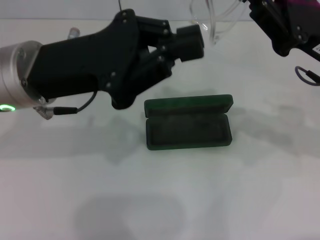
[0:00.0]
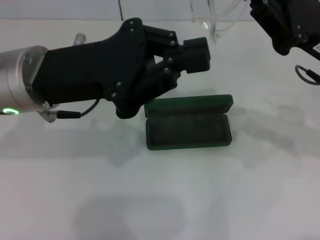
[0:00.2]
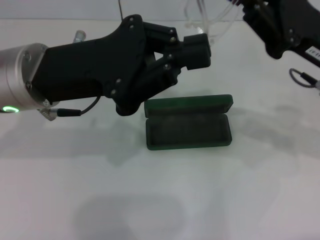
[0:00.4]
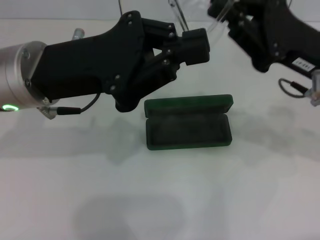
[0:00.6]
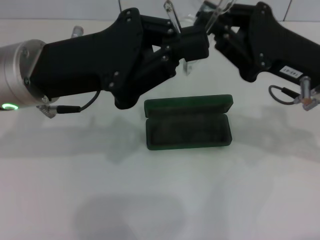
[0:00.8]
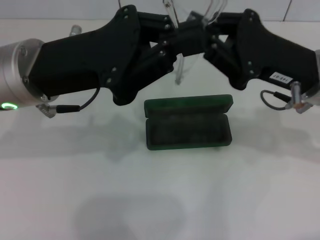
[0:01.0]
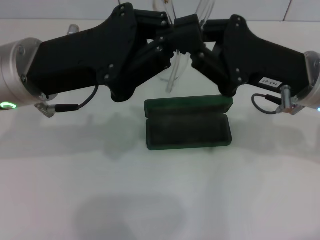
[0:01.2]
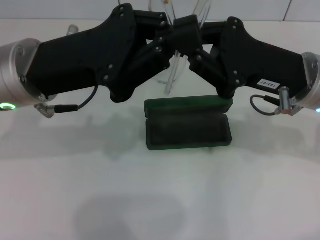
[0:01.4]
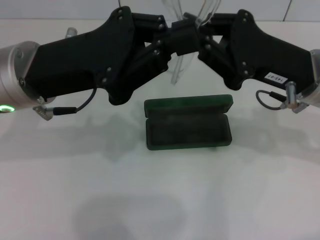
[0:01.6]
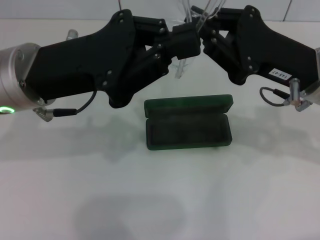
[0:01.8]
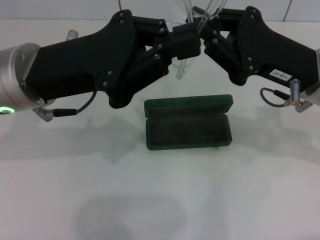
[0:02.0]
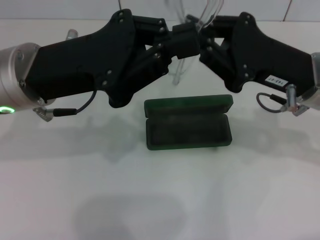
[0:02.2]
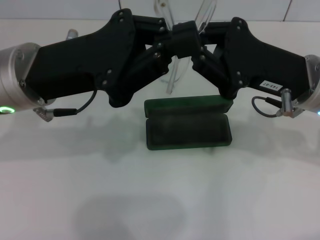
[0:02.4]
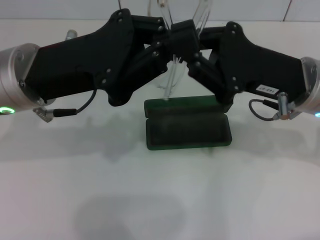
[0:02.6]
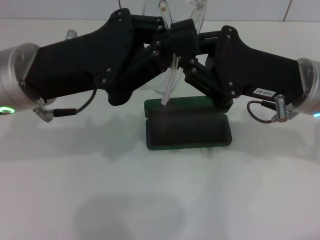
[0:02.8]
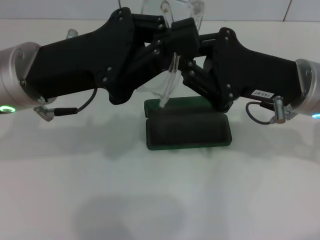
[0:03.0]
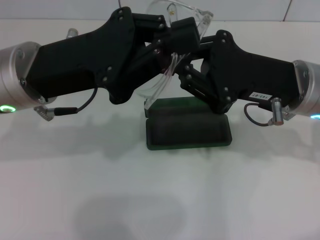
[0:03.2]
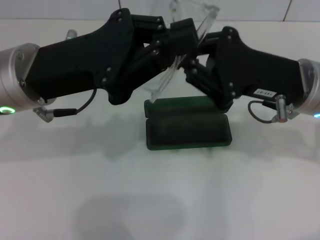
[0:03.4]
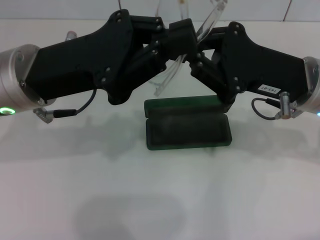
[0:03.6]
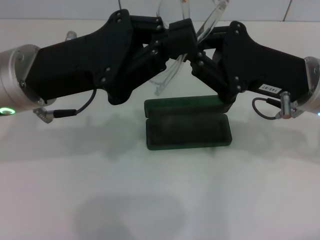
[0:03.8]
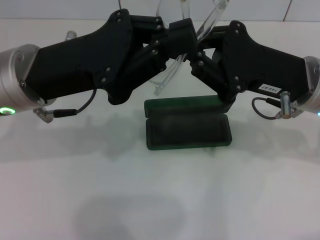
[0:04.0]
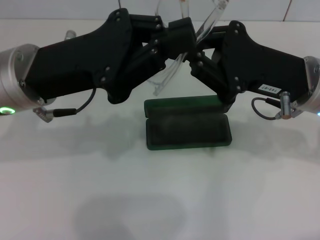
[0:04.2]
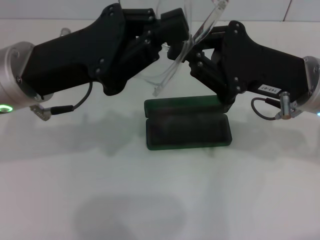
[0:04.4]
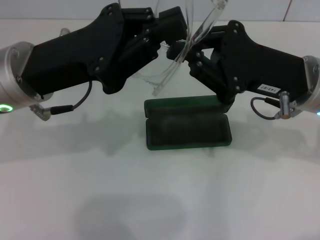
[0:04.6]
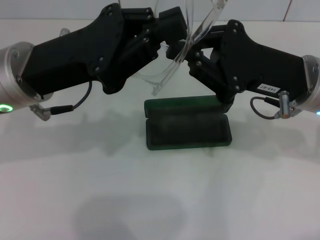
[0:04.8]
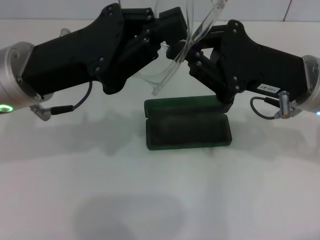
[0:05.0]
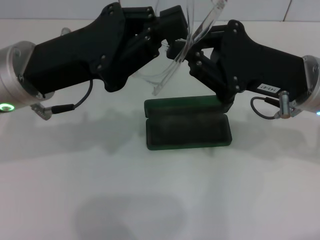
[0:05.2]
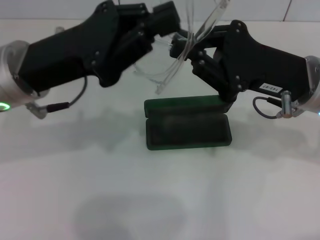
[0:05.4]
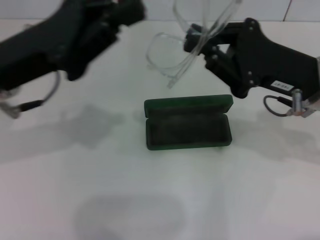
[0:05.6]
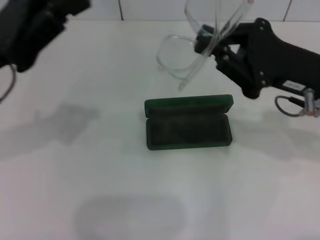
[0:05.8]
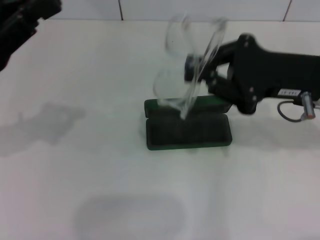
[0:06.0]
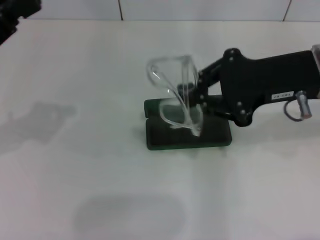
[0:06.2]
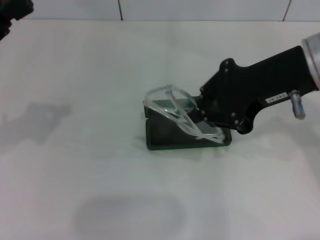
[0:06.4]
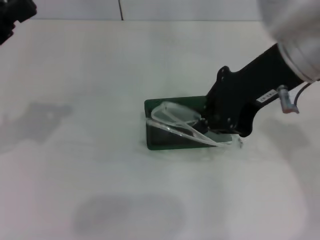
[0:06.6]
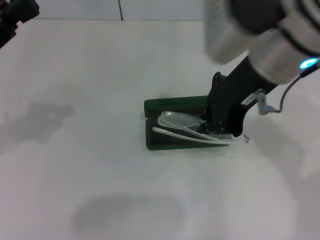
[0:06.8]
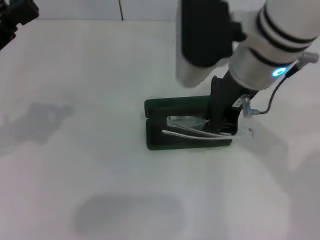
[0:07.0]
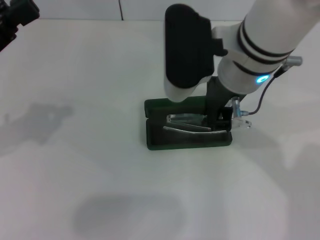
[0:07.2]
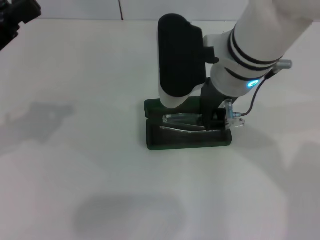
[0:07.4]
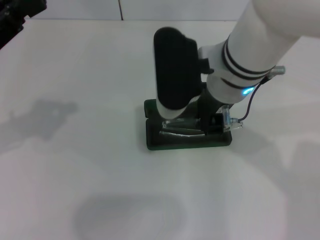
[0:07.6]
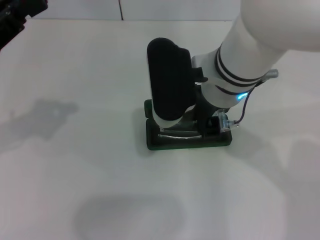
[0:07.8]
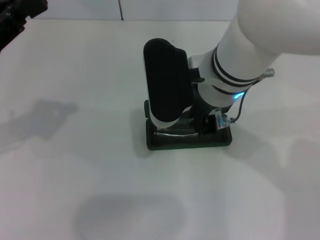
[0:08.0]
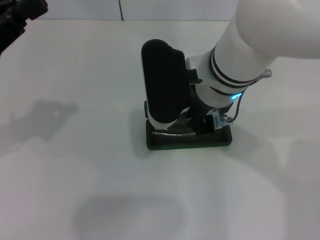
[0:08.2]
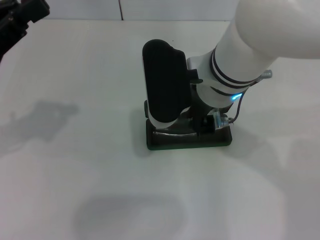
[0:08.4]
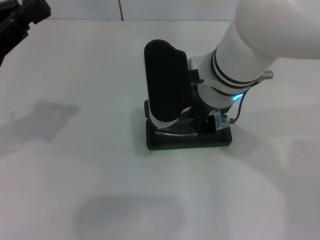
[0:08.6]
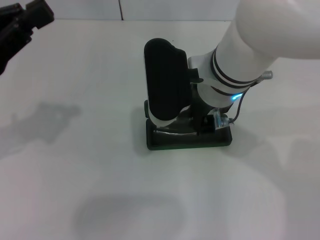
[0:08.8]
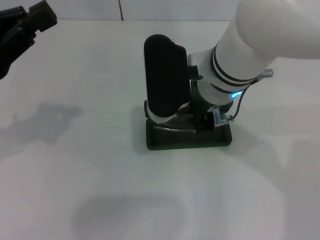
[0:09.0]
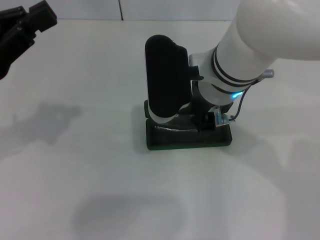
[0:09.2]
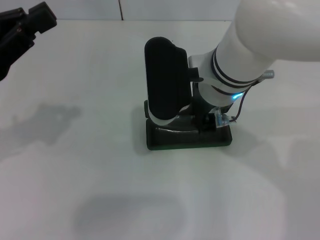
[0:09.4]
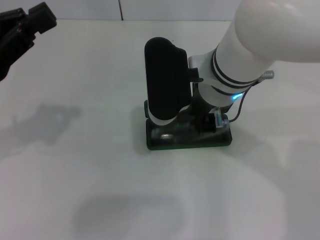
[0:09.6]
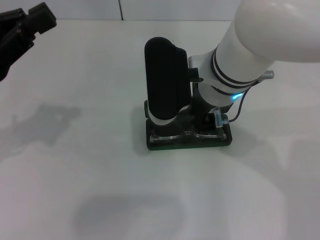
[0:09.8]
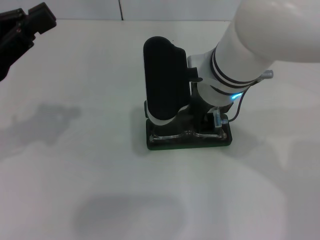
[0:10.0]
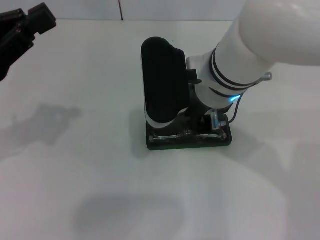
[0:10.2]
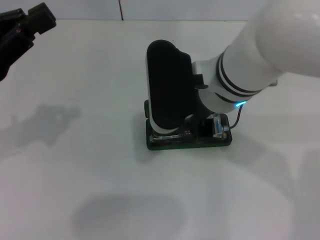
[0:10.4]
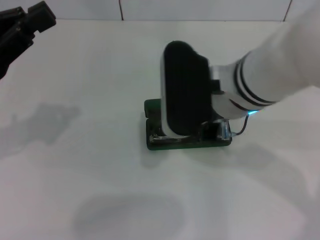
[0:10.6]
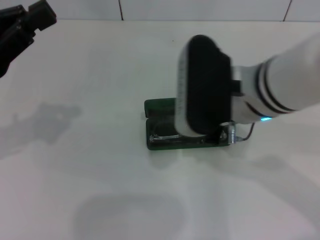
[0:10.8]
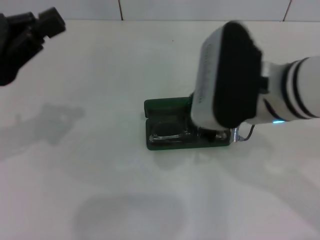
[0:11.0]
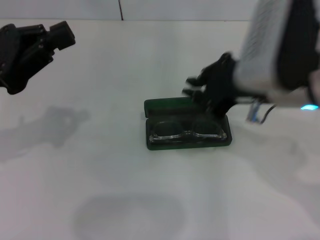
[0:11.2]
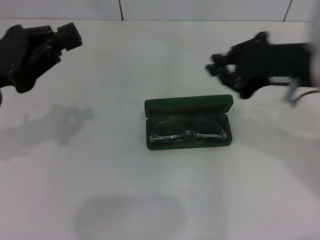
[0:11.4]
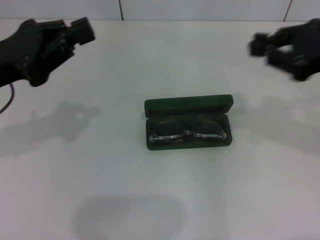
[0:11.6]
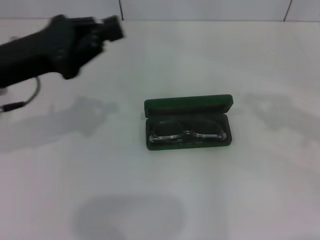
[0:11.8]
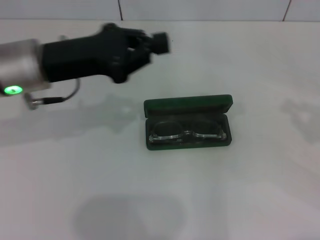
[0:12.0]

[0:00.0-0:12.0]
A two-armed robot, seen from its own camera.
Step, 0:00.0 to 0:02.6: Lift the glasses with your right hand.
Step, 0:02.8 to 0:09.8: Put the glasses into the case with your right hand.
0:00.0 to 0:03.0: There are only small adjustments of the grippers.
0:03.0 to 0:04.4: The two grippers keep their place.
0:04.4 to 0:06.0: The left gripper heads to the left, covering roughly 10 cm.
0:06.0 to 0:07.6: The right gripper is displaced to the left by about 15 cm.
0:07.6 to 0:10.4: The grippers make only small movements.
0:10.4 to 0:12.0: The left gripper is displaced to the right and forward by about 10 cm. The right gripper heads to the right, covering about 35 cm.

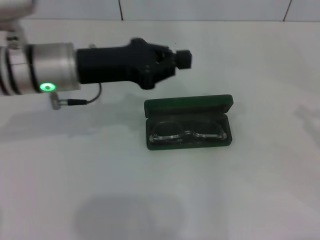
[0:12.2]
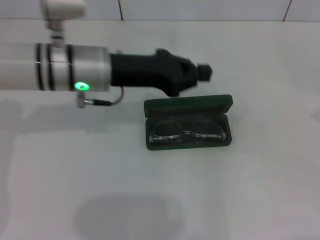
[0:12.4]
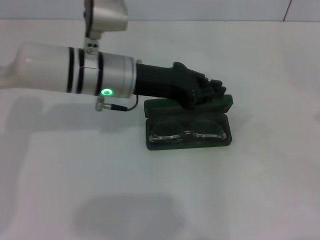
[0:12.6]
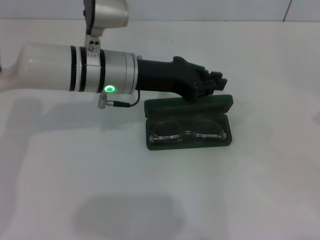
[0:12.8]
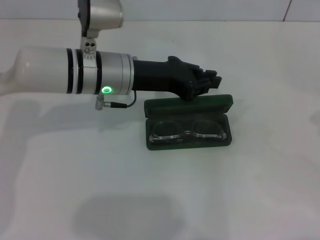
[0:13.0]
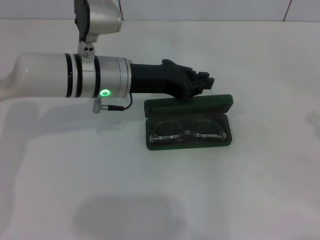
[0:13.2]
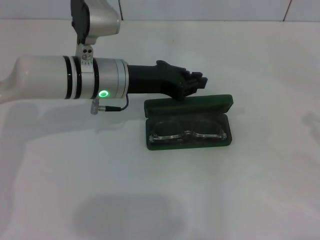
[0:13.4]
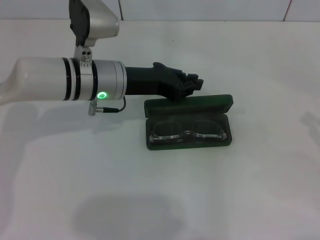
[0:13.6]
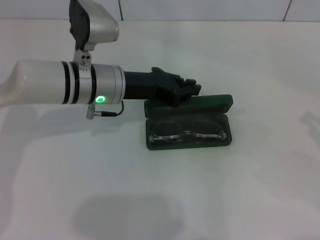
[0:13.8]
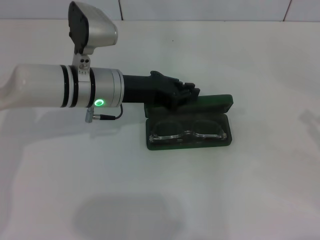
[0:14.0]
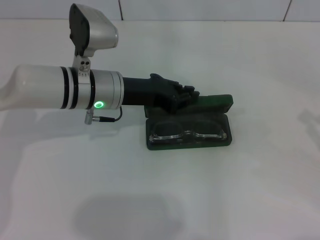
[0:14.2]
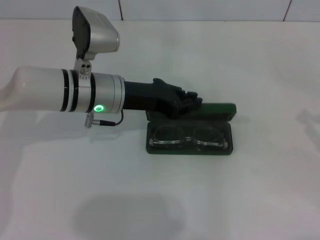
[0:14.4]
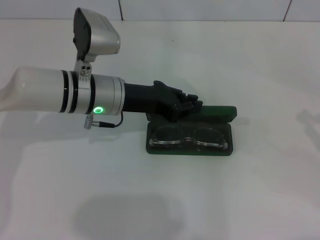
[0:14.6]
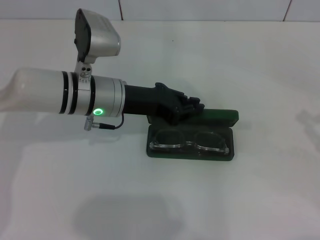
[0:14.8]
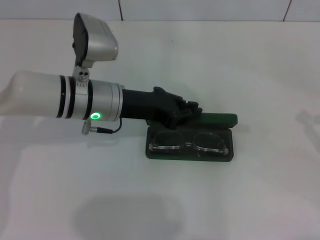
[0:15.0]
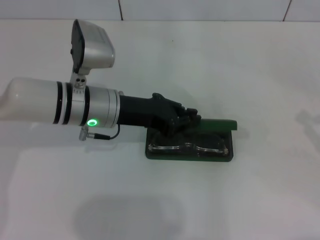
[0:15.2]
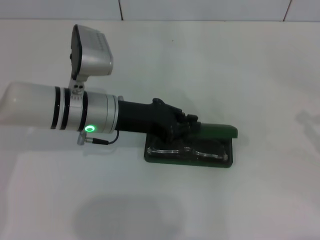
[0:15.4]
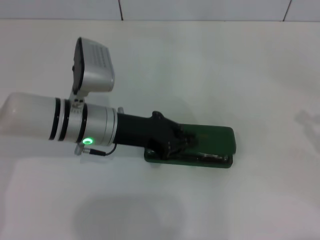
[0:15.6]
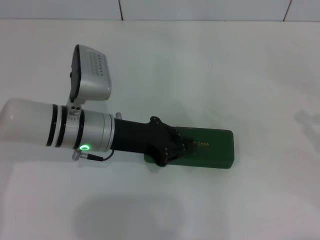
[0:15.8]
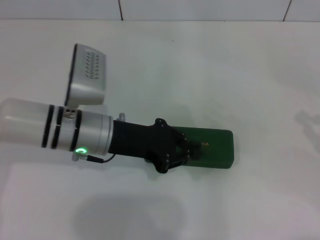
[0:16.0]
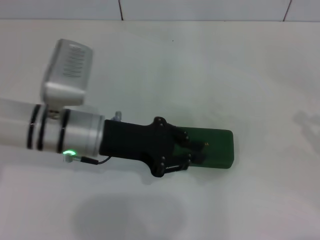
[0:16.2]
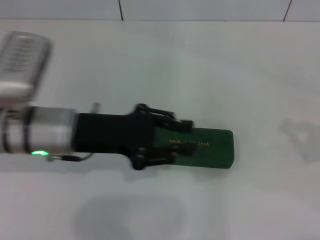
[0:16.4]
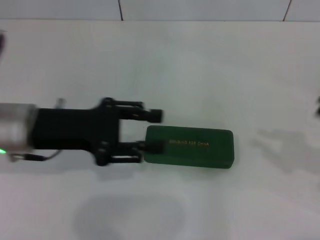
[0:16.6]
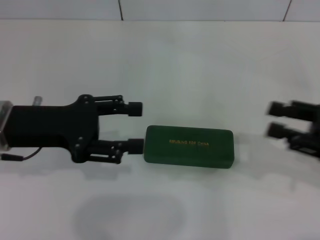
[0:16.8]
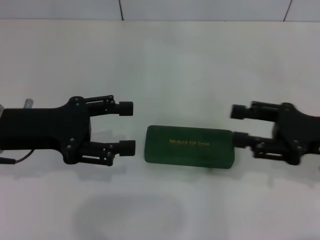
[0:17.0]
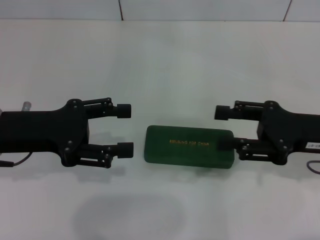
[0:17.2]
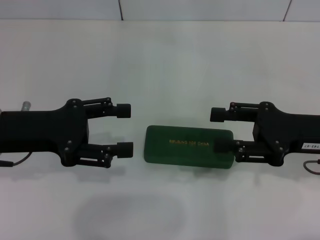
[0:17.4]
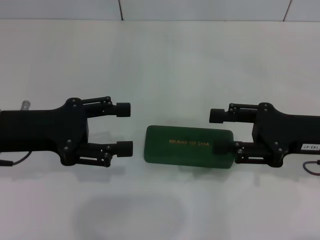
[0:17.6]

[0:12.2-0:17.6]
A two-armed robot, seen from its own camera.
Step, 0:12.2 to 0:15.6: Close the glasses case with your left hand.
0:12.2 to 0:13.6: The left gripper ends up some 5 cm from where it was.
0:13.6 to 0:15.0: The grippers stay close to where they were, moving slightly.
0:15.0 to 0:16.2: The left gripper is displaced backward by roughly 5 cm.
0:16.2 to 0:17.6: The right gripper travels to the left and forward by about 15 cm, and opens up; the left gripper shifts about 10 cm to the left, and opens up.

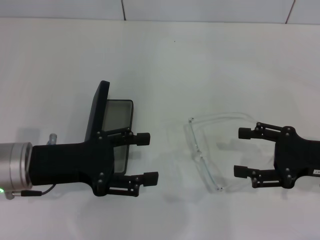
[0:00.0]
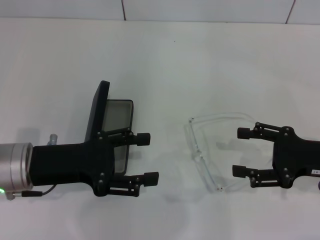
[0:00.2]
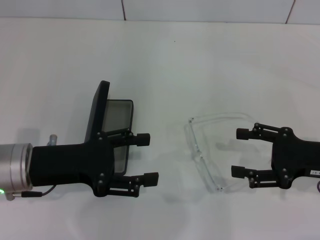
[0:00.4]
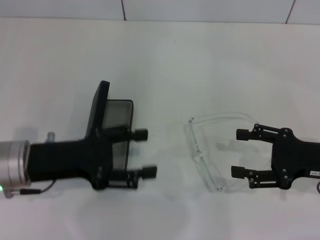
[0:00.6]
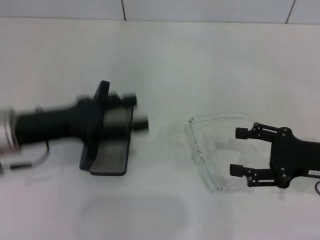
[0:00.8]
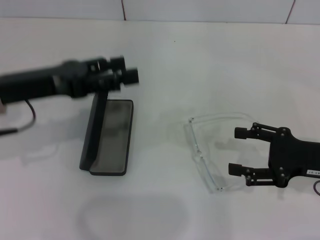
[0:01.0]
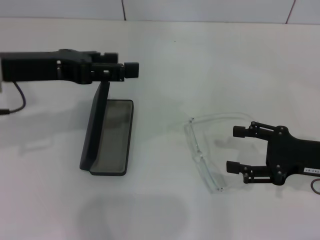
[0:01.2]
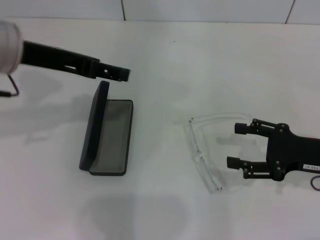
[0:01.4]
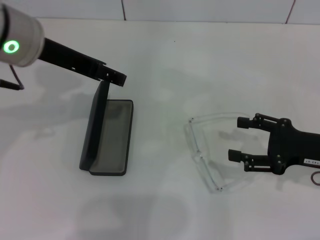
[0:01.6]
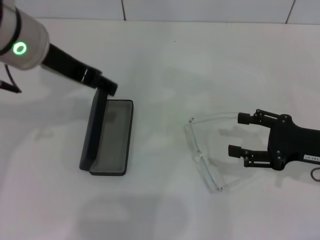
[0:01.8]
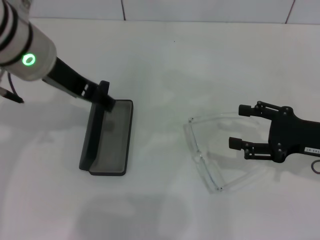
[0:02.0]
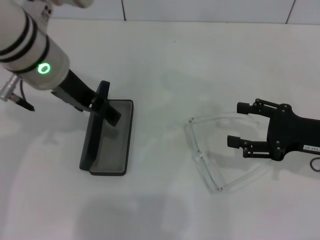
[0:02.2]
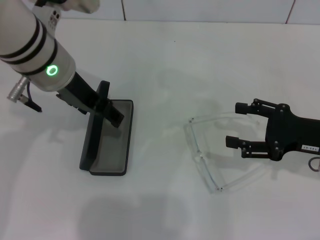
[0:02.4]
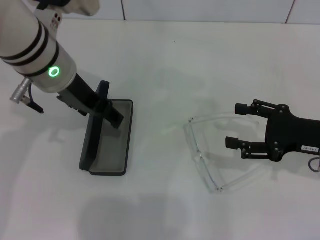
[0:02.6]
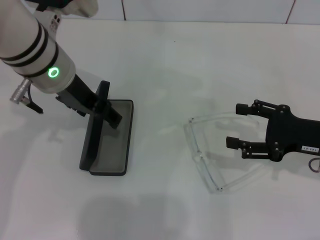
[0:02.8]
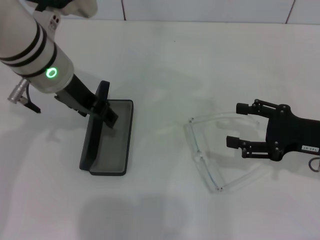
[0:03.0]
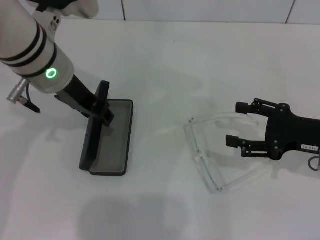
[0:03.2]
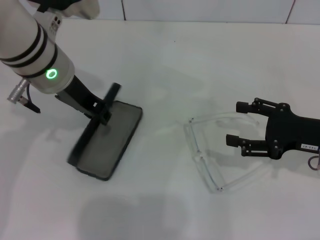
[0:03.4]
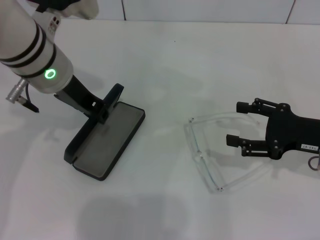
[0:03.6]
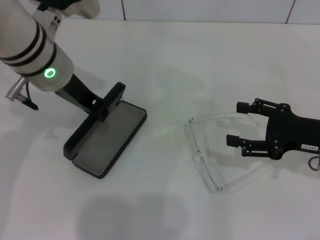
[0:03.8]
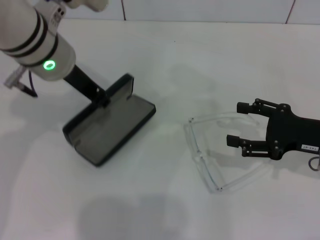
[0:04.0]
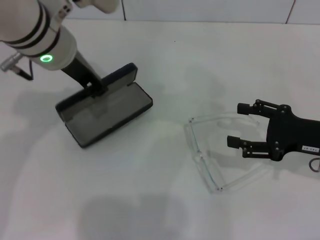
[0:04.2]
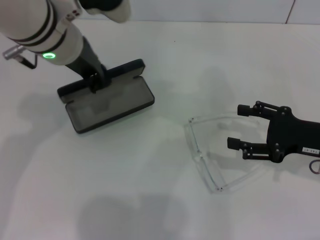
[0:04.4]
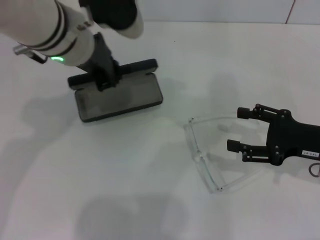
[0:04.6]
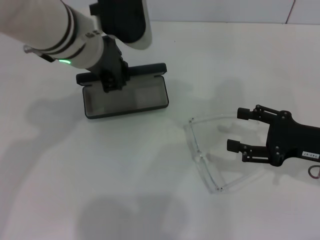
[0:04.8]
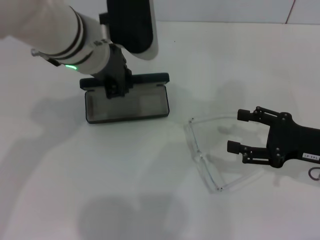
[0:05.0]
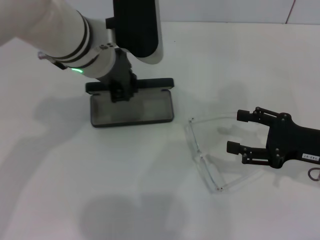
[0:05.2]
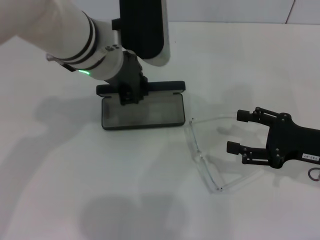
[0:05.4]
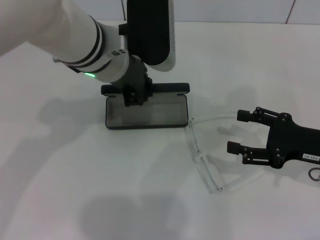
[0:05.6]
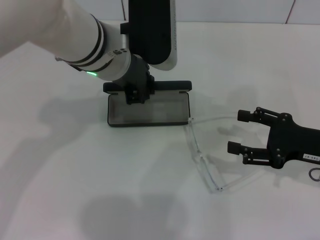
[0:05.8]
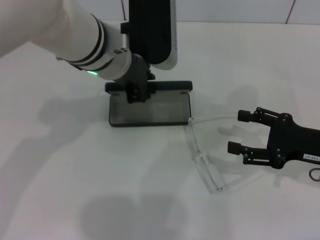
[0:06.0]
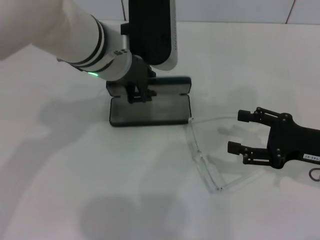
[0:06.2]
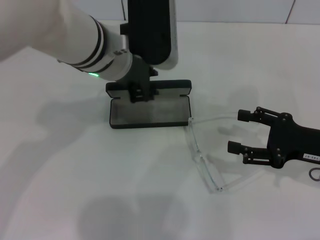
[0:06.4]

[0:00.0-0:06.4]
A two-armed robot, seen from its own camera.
Step, 0:00.0 to 0:03.2: Grab the glasses case with your left hand.
Step, 0:03.6 to 0:06.4: Place the glasses case in the center of the table with your left hand.
0:00.0 to 0:01.6: The left gripper travels upward and forward by about 15 cm.
0:01.6 to 0:03.2: The left gripper travels downward by some 5 cm.
0:03.2 to 0:04.8: The left gripper closes its fingers.
0:04.8 to 0:06.4: The grippers make only small movements.
